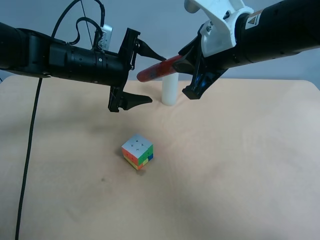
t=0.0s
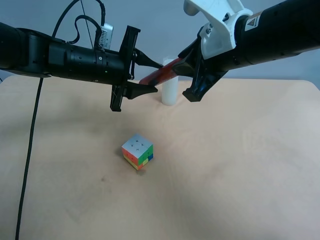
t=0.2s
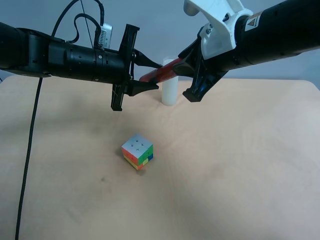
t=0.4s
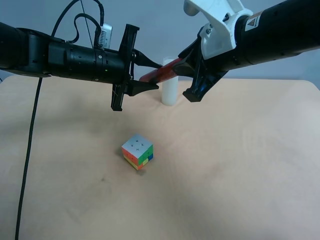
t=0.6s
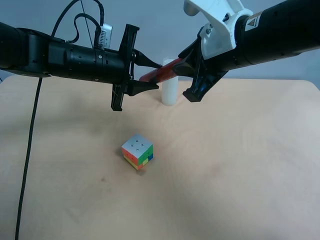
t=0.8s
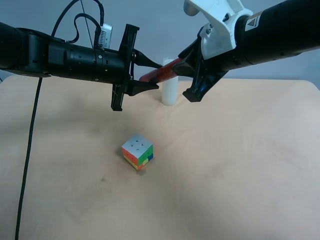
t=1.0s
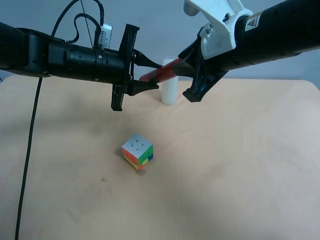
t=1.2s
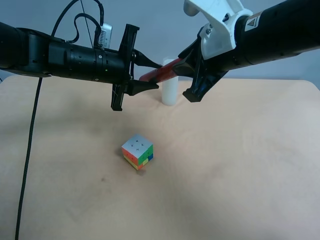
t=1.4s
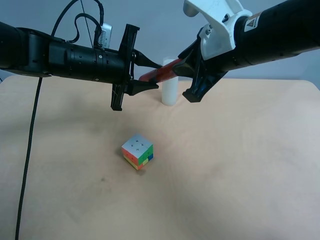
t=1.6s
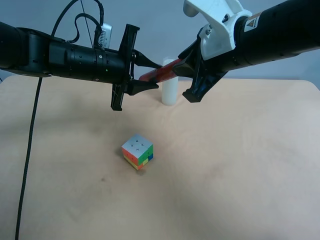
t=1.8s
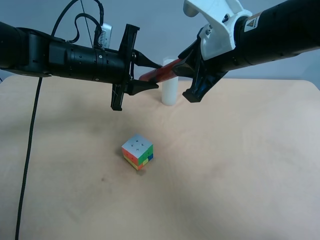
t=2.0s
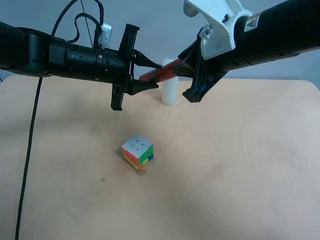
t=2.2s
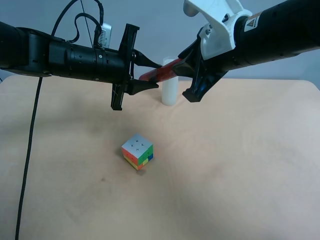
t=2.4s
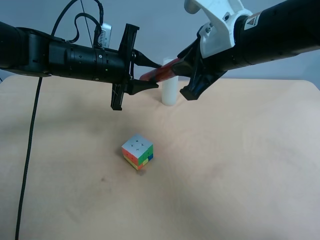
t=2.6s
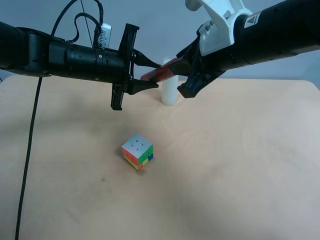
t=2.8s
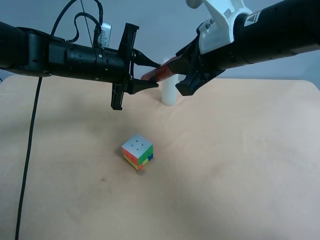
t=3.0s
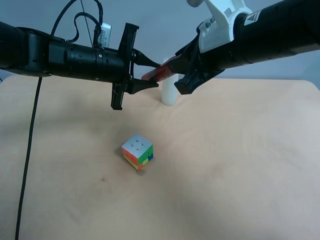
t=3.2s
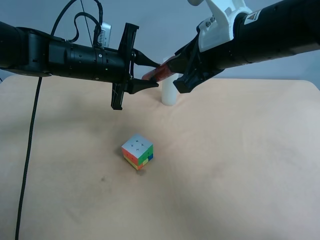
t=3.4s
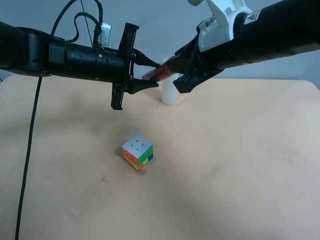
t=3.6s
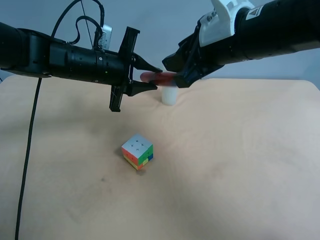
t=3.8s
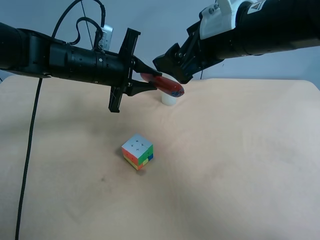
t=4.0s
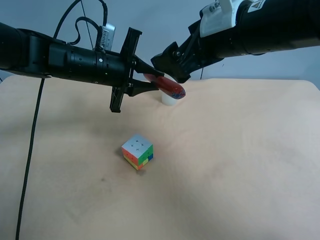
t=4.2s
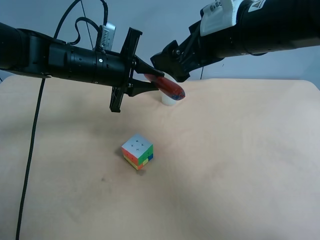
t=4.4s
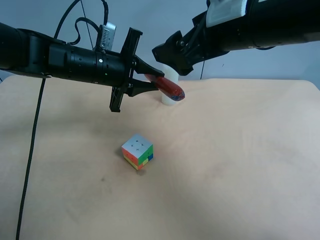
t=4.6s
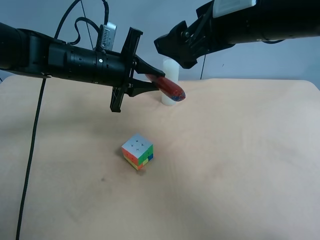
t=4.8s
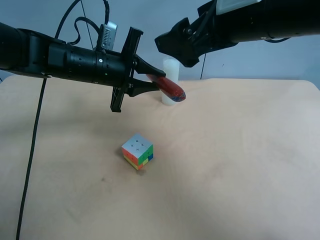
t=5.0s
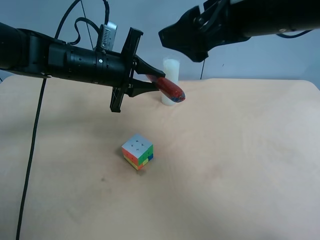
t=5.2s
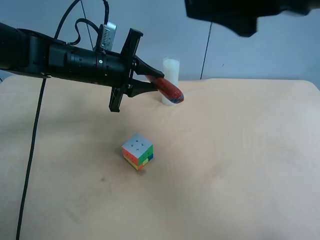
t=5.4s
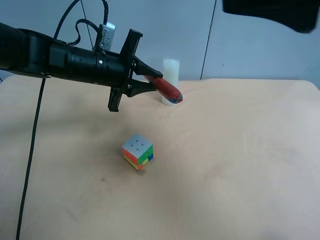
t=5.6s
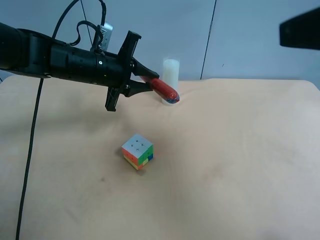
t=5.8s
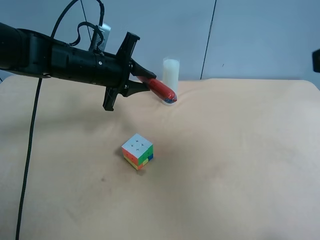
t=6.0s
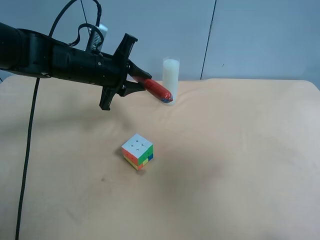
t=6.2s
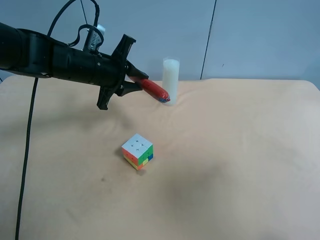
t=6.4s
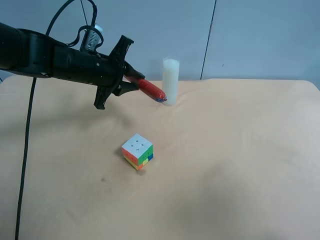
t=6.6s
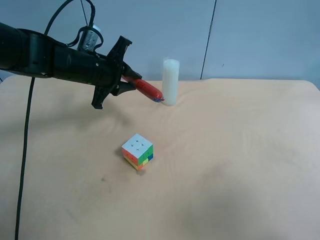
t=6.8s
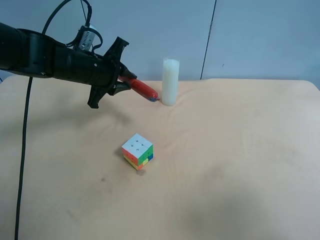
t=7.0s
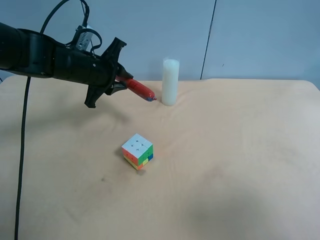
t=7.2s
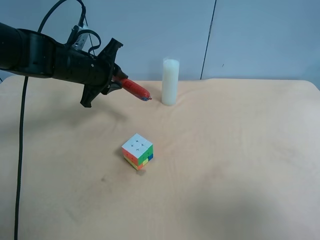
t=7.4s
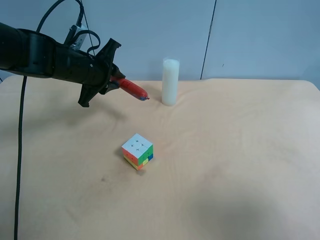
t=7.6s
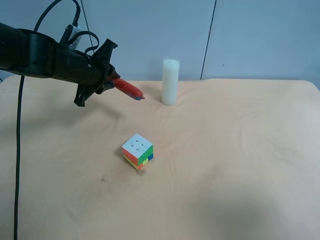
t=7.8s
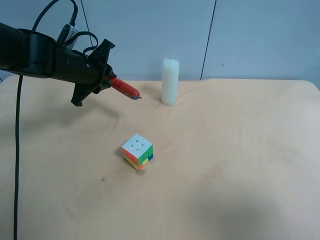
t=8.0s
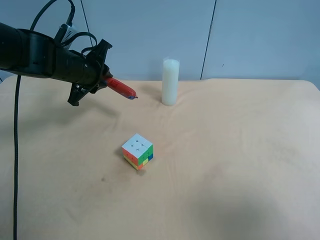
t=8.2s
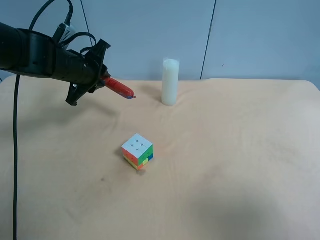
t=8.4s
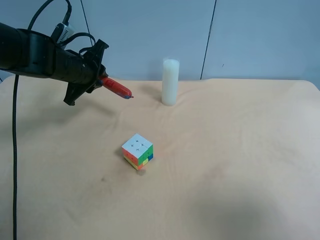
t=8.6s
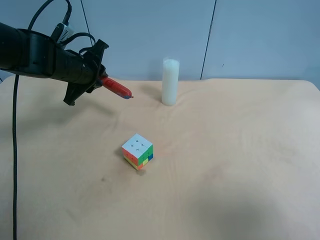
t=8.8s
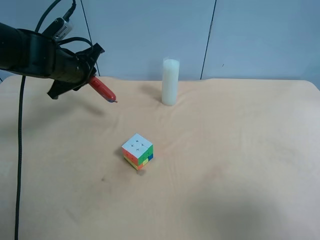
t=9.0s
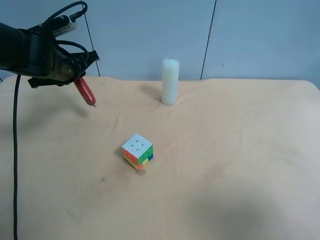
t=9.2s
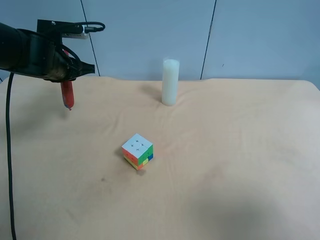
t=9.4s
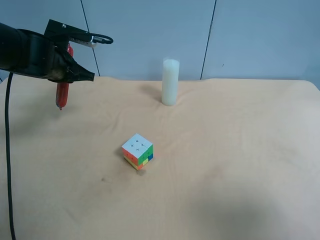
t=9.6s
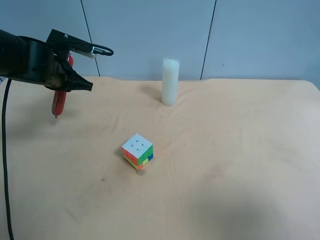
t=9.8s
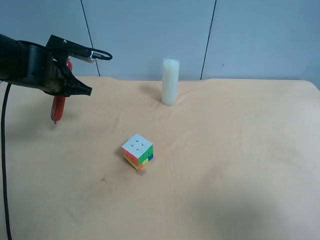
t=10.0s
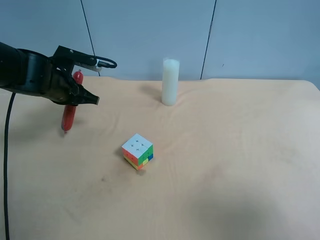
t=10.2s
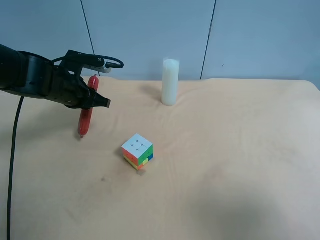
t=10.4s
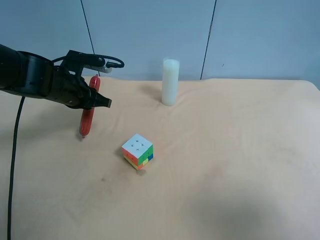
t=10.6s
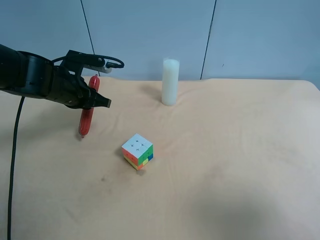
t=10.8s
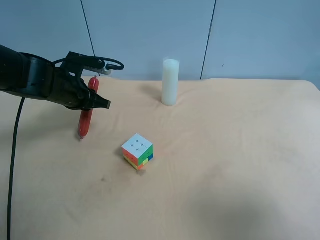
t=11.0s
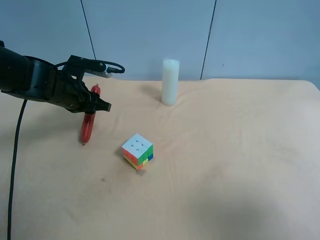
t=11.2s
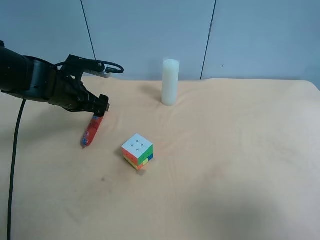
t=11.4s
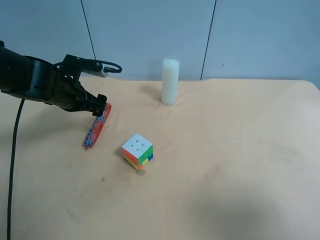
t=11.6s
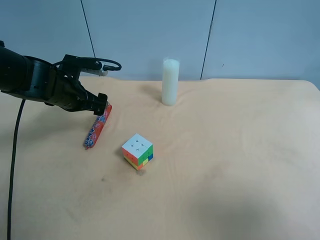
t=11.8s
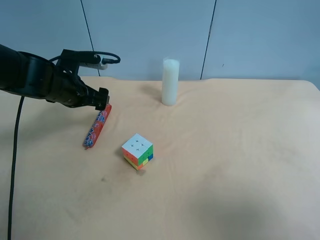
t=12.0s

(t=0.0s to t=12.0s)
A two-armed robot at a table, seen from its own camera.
Task of the whole recording: use the right gripper to pick up the item and transfer it from the right gripper to the left gripper.
t=0.0s - t=1.6s: The left gripper closes up.
t=1.6s - t=3.0s: The grippers move only a little.
t=3.0s - t=4.4s: The right gripper opens.
t=4.4s - t=6.0s: The right gripper shifts approximately 20 cm backward, to the right and upward.
t=6.0s - t=7.6s: The right gripper is displaced backward and downward by roughly 15 cm.
t=10.4s - t=12.0s: The left gripper opens up.

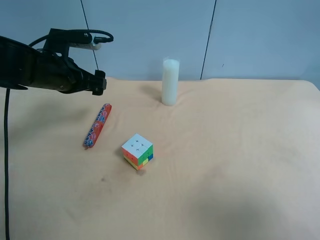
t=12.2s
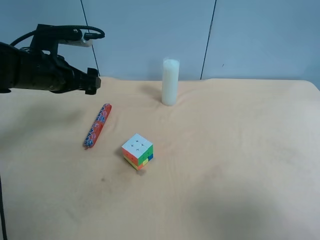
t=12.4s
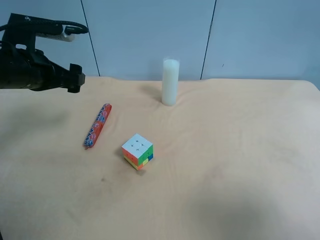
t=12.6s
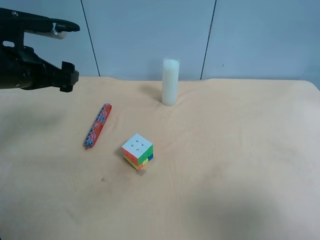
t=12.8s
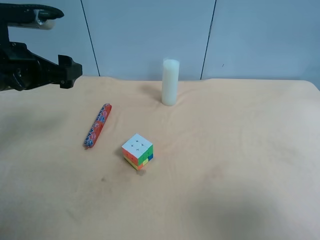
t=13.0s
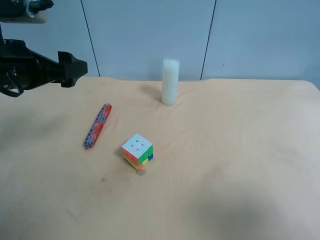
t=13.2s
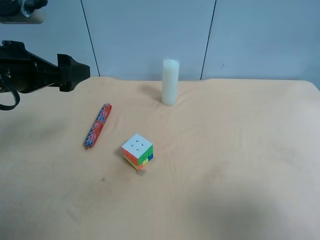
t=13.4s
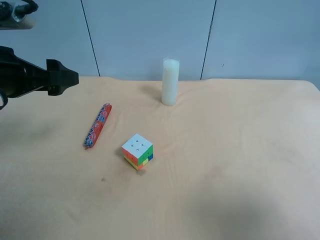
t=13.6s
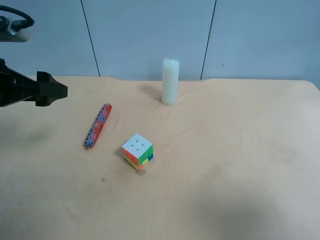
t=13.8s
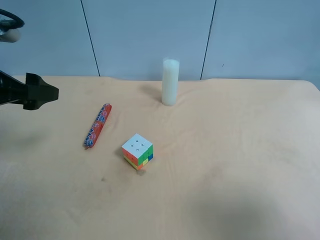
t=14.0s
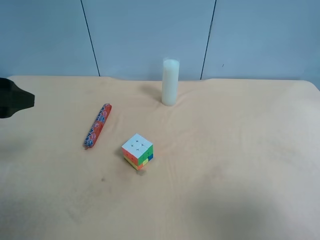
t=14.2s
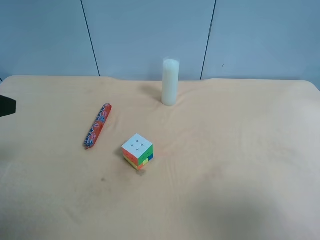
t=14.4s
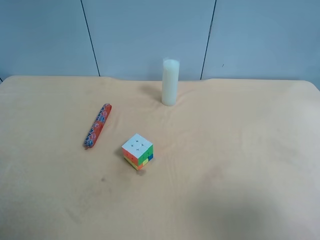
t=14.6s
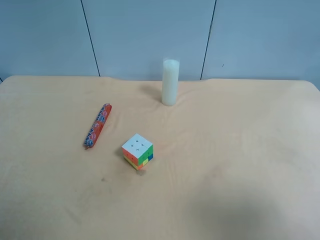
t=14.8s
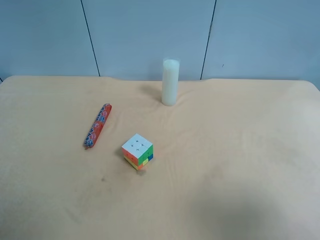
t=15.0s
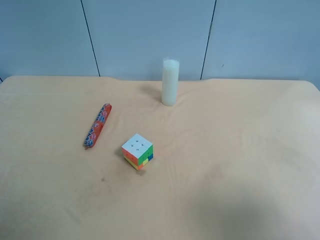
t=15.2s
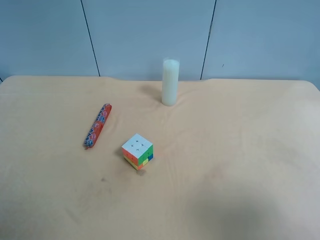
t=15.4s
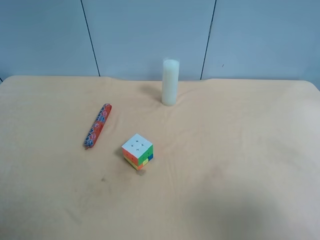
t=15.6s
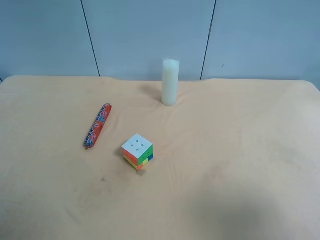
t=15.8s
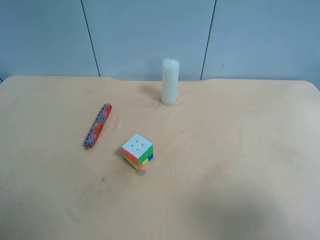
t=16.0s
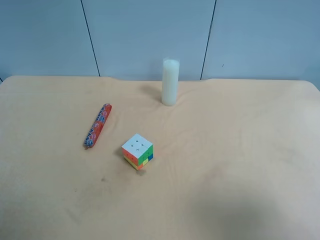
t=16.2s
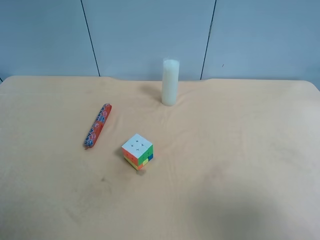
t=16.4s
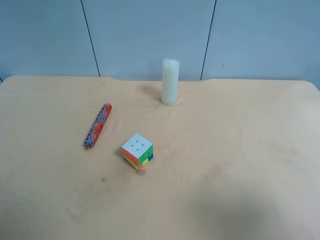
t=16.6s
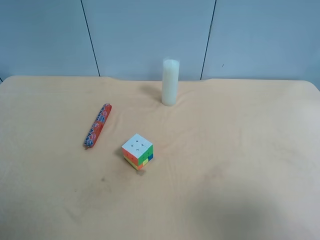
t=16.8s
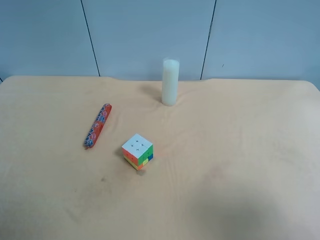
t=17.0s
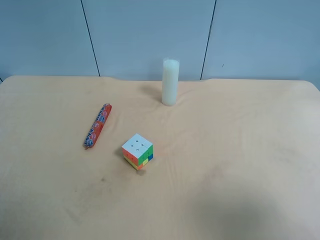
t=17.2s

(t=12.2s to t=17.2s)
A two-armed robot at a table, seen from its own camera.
Task of the whole recording: use the right gripper to pick up the item and transfer it from the right gripper to the left gripper.
t=12.2s - t=13.8s: The left gripper moves backward, upward and to the left, about 15 cm.
t=13.8s - t=15.6s: The left gripper moves backward, about 20 cm.
